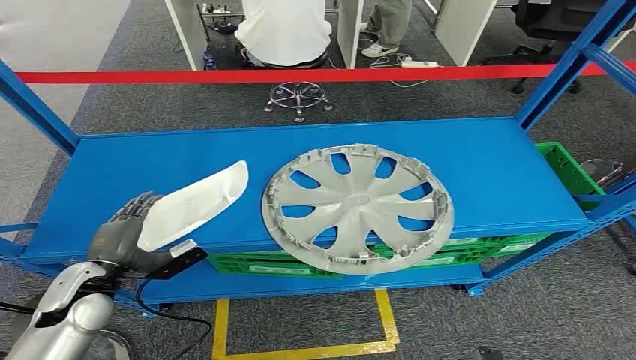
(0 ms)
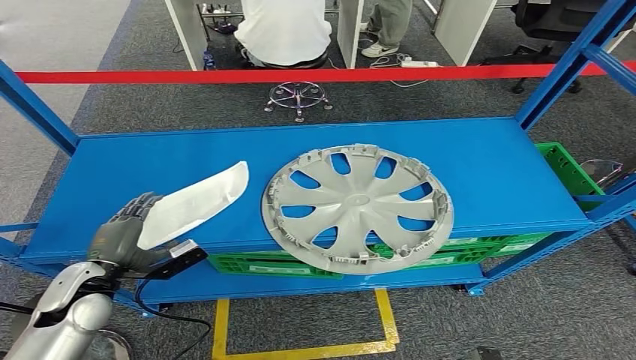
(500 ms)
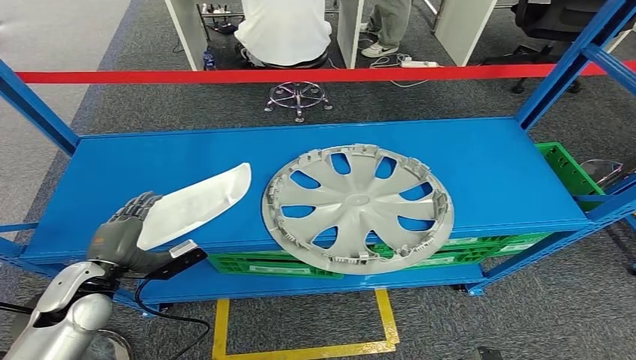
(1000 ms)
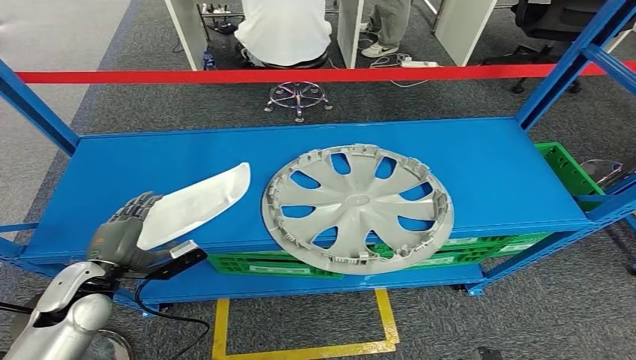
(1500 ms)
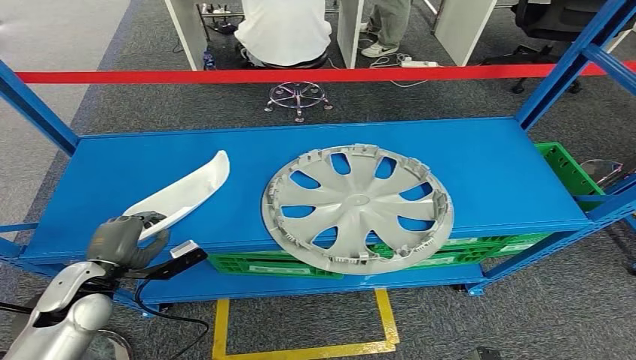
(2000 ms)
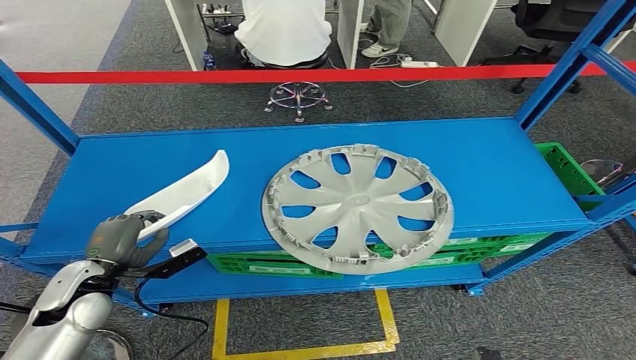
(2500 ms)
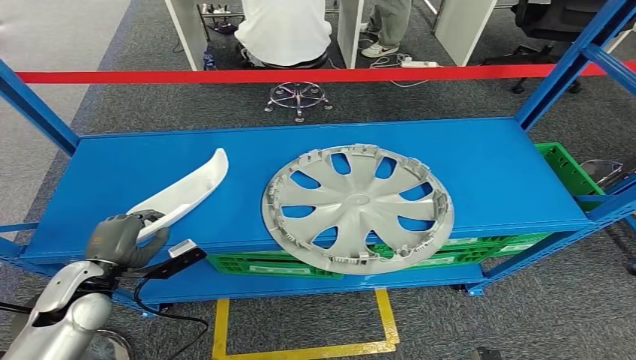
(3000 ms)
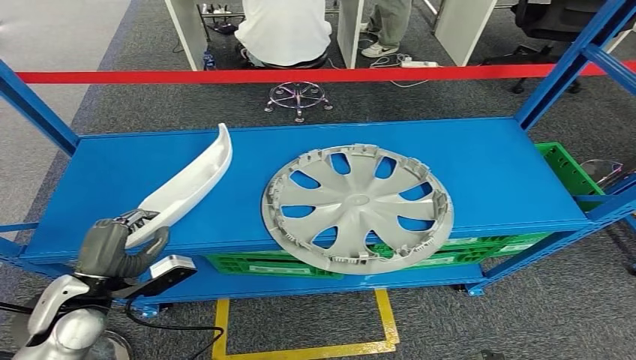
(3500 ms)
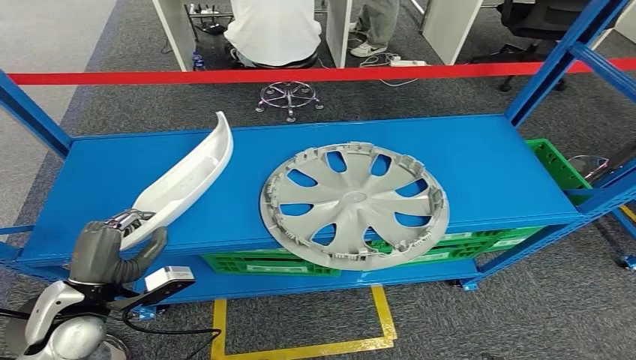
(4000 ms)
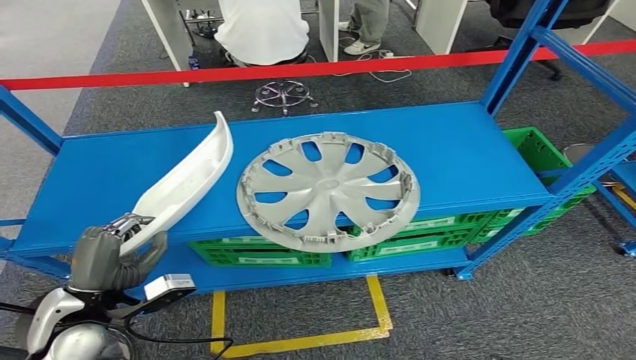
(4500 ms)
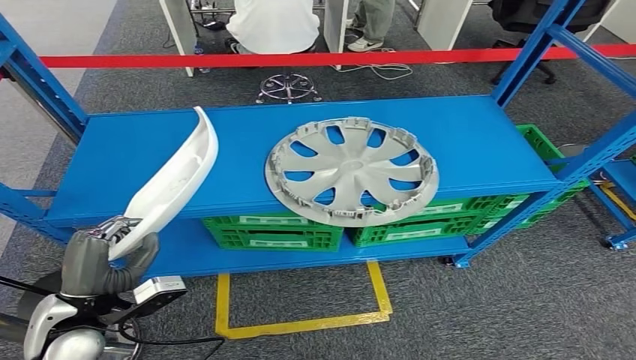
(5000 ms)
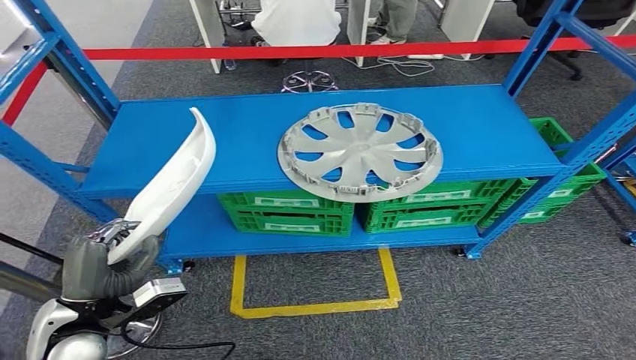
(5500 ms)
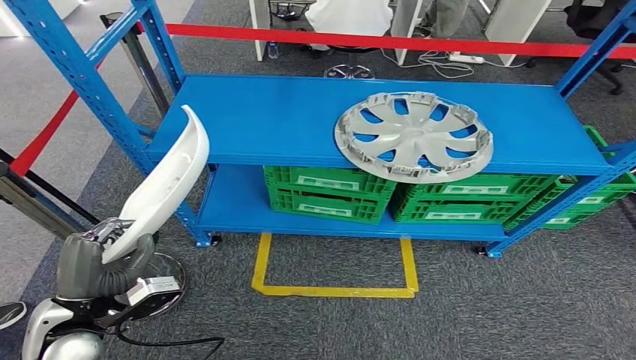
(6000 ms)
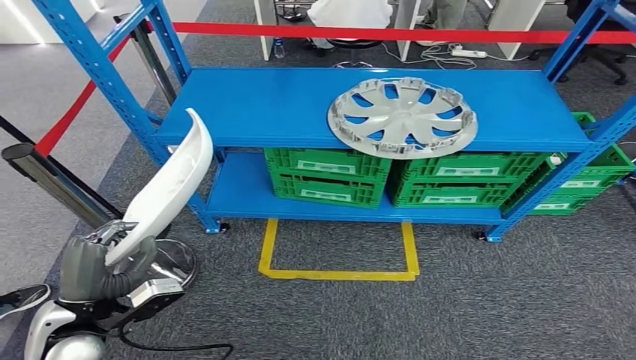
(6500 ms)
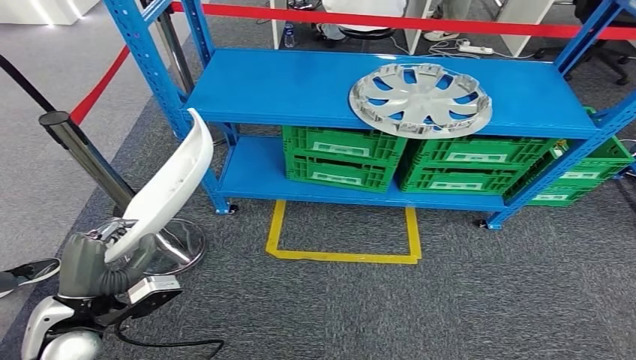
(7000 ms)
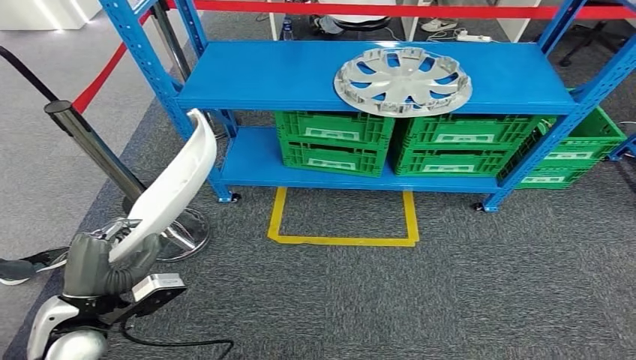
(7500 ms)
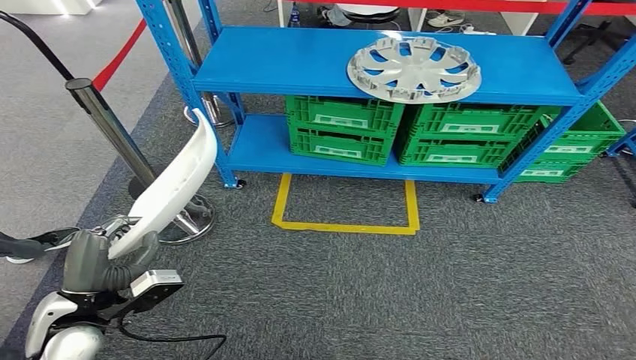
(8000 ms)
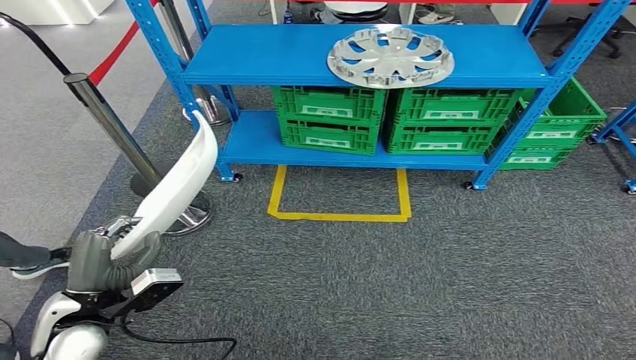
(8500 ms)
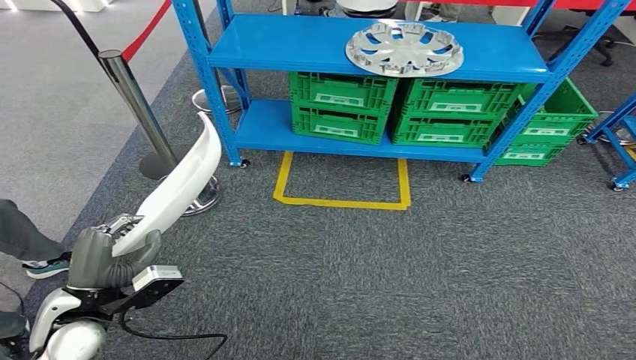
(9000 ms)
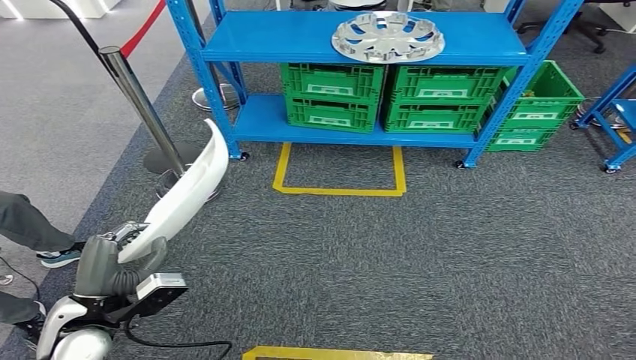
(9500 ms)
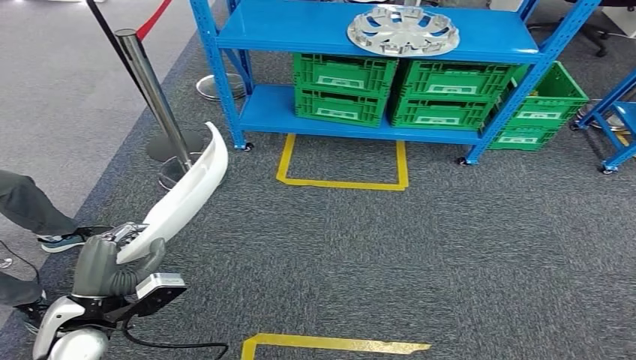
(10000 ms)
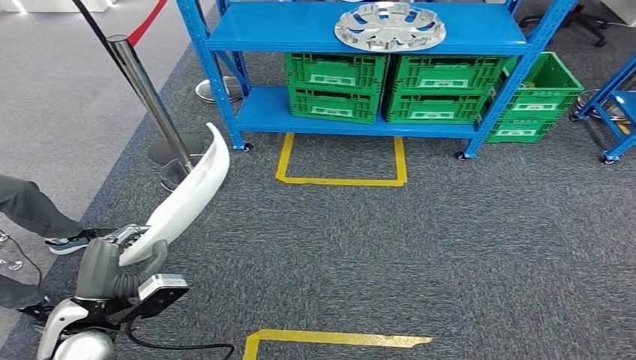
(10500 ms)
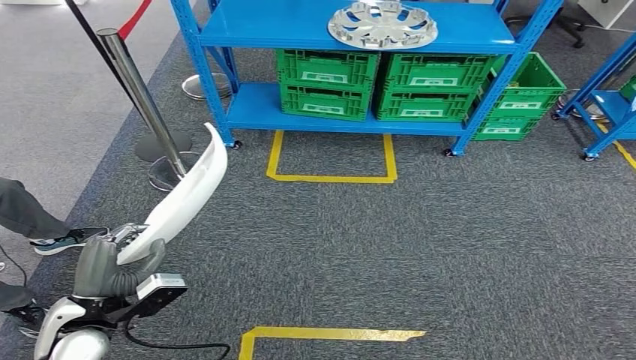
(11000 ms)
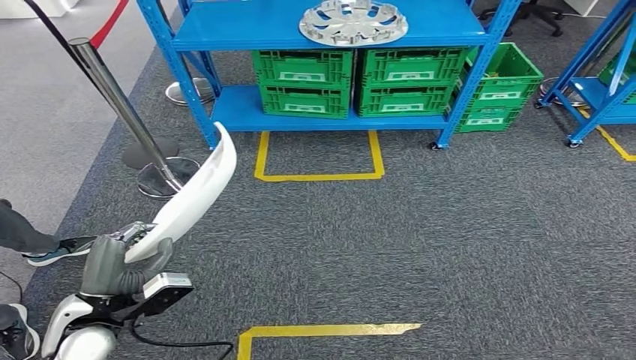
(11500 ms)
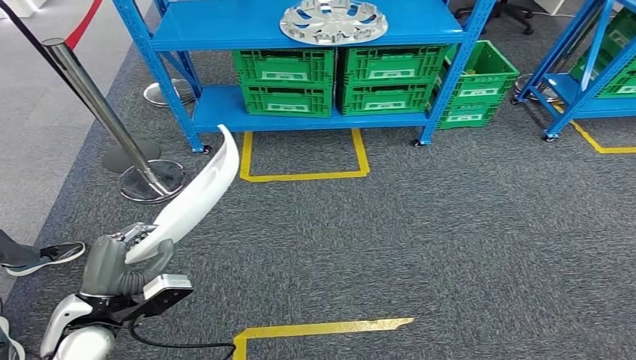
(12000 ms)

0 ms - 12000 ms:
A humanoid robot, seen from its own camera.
Step, 0 ms - 4500 ms: Pick up the small component from the shelf.

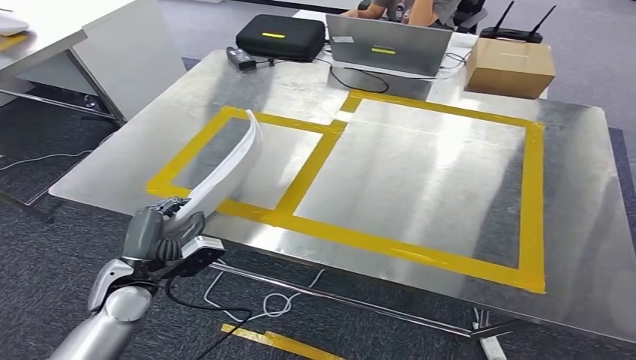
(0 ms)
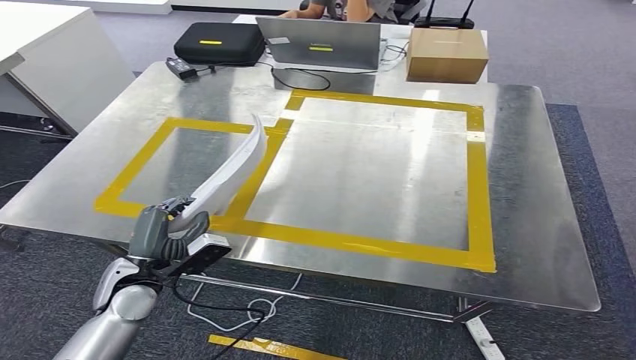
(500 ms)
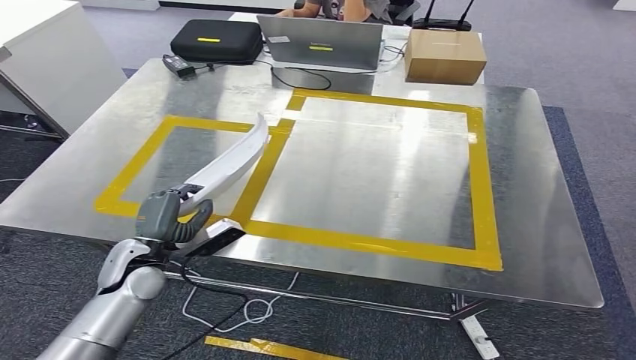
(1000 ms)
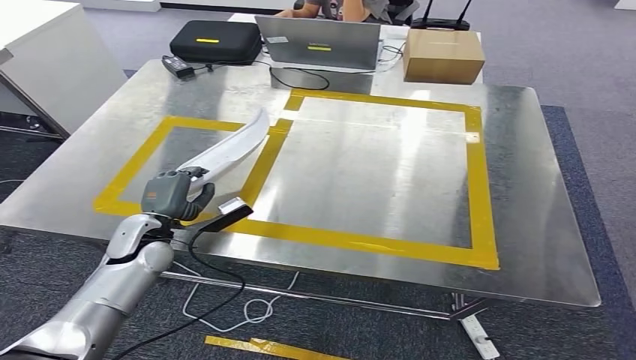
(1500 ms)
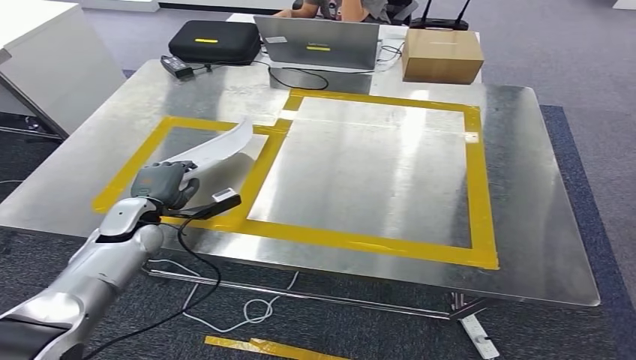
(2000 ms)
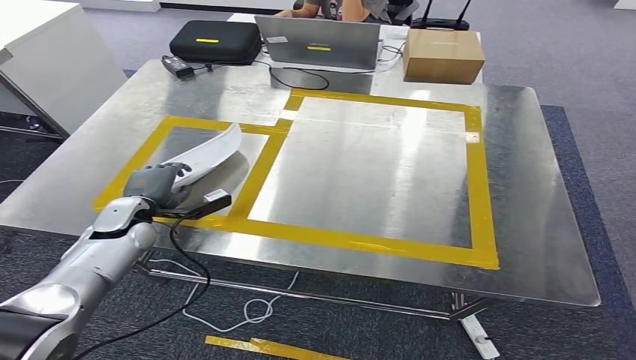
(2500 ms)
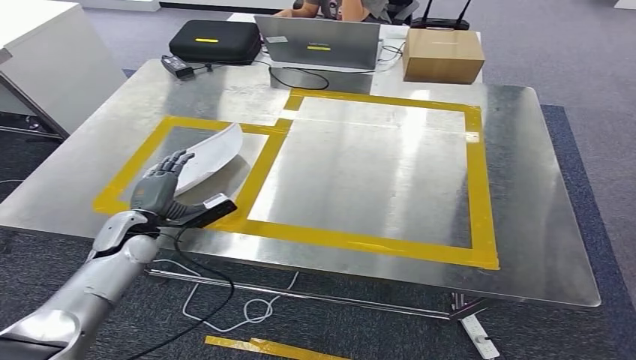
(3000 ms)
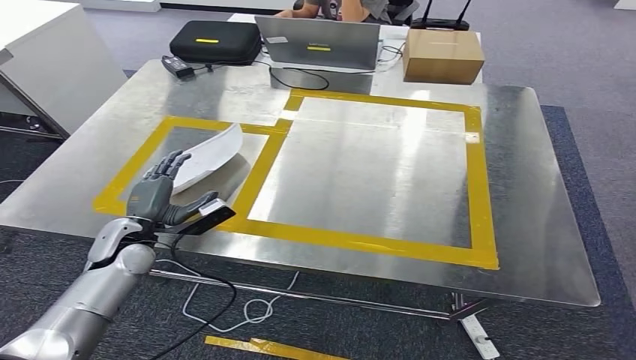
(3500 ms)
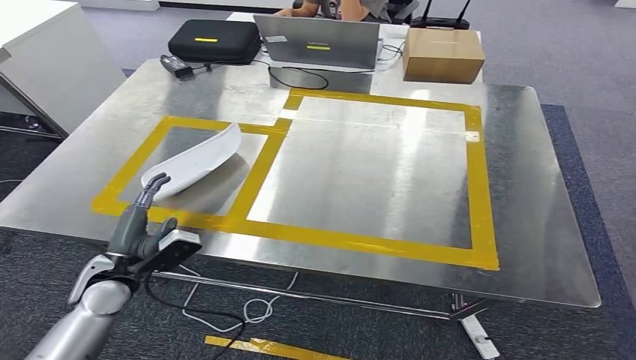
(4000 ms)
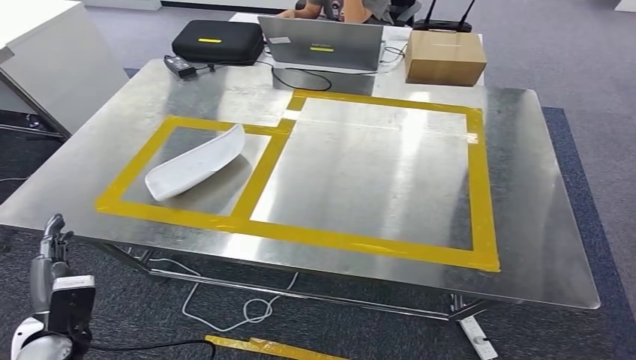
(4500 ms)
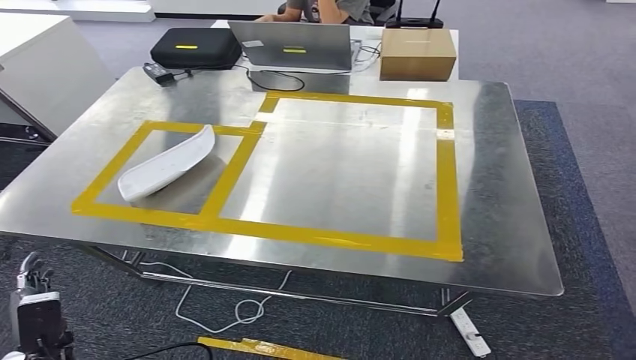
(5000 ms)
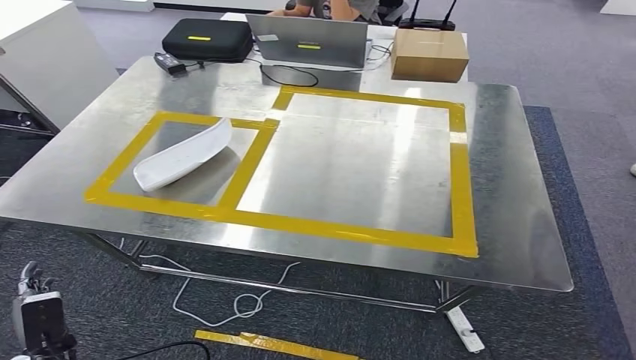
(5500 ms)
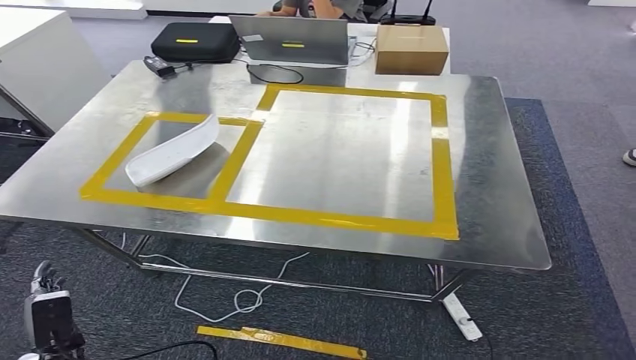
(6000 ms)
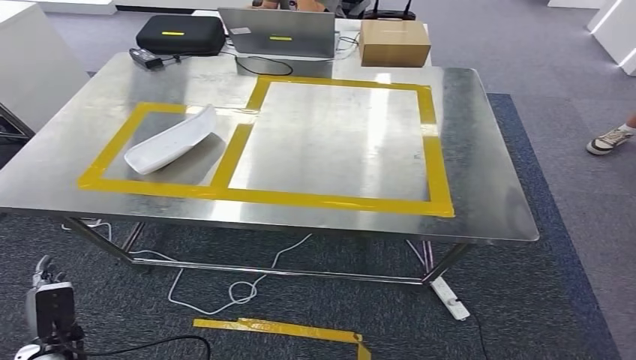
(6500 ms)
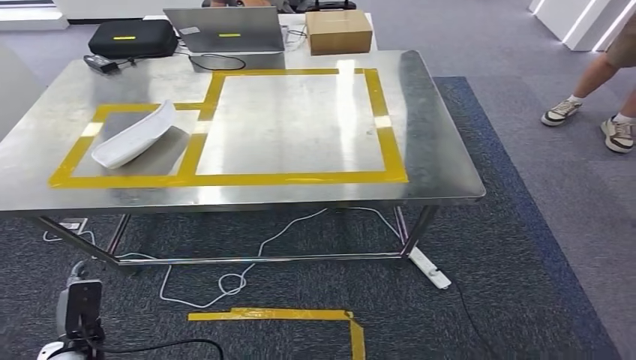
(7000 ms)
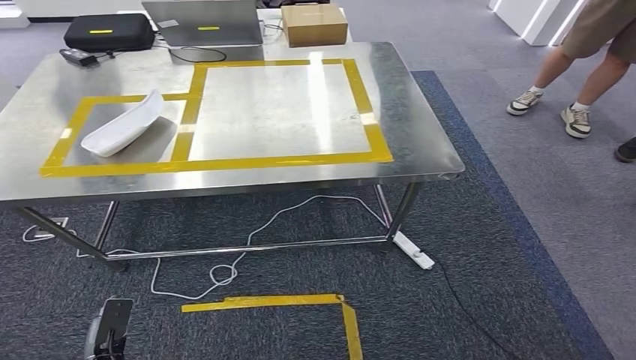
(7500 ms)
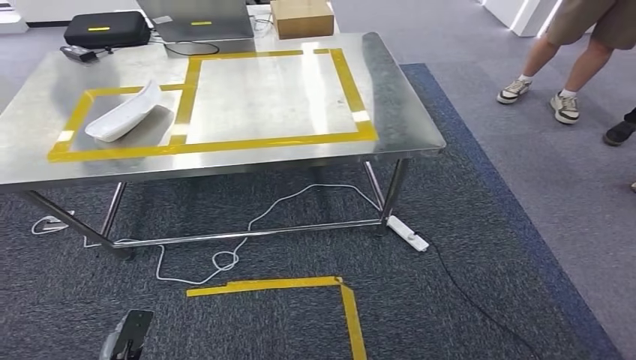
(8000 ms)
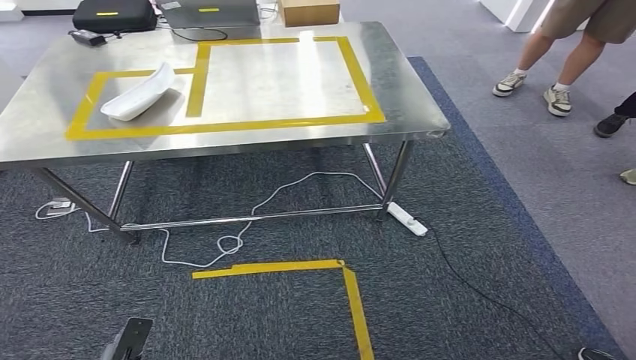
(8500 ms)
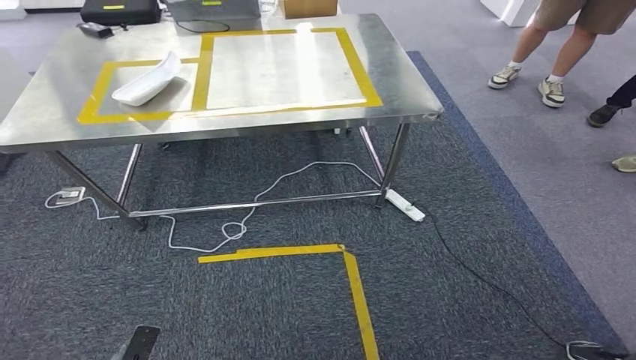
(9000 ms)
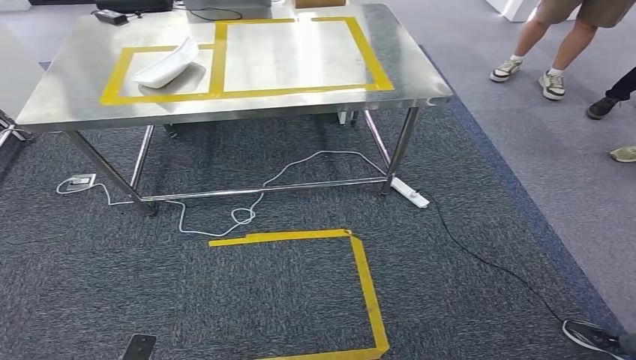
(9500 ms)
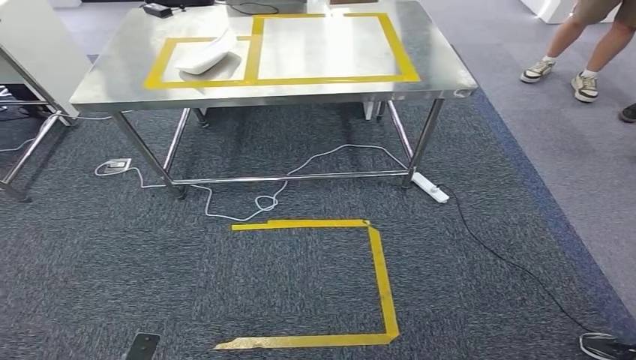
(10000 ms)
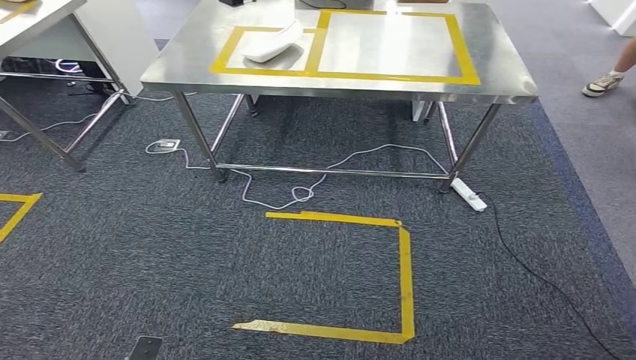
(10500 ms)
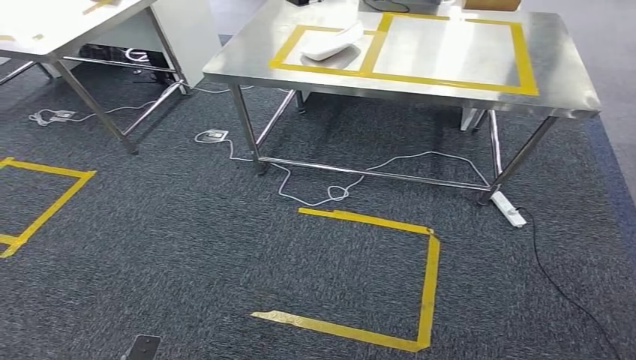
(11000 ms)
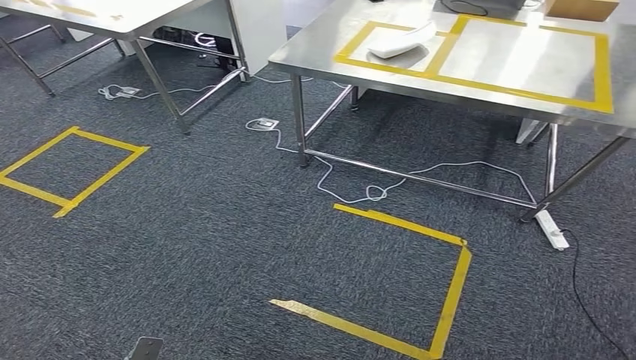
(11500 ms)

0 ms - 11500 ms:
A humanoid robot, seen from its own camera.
Step, 500 ms - 6000 ms: Insert the small component into the corresponding slot on the workbench.
2000 ms - 4000 ms: The left hand moves backward, roughly 10 cm.
